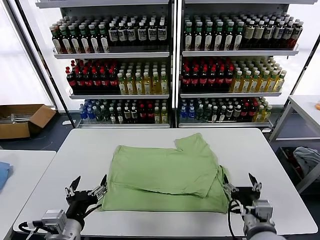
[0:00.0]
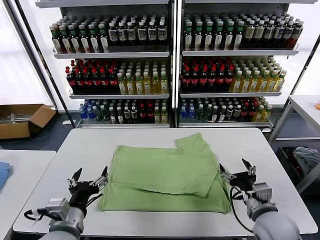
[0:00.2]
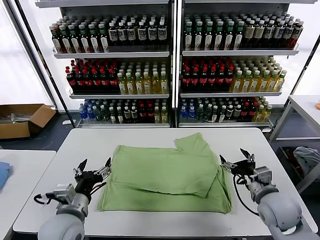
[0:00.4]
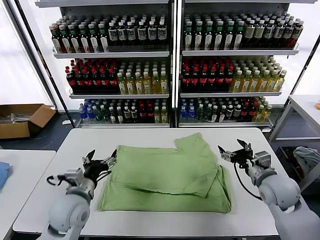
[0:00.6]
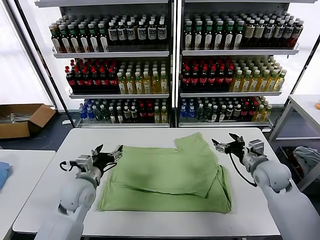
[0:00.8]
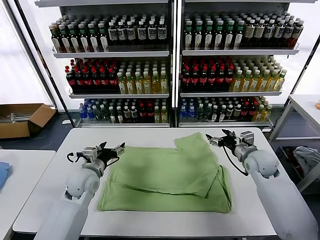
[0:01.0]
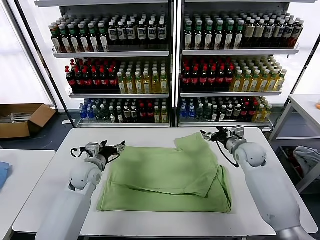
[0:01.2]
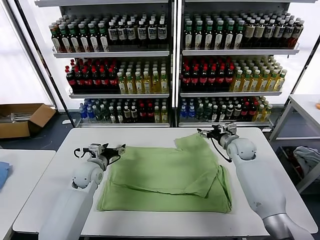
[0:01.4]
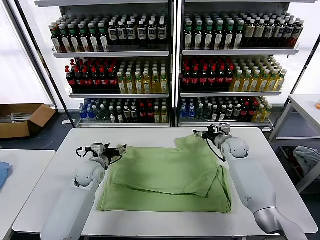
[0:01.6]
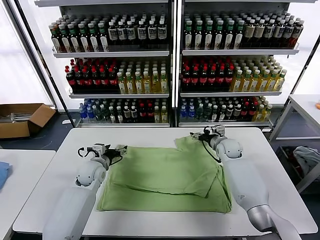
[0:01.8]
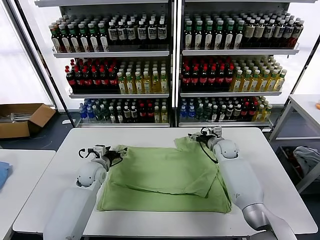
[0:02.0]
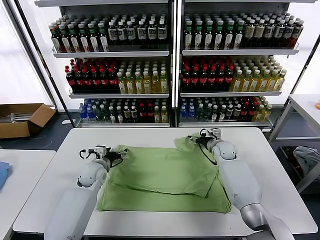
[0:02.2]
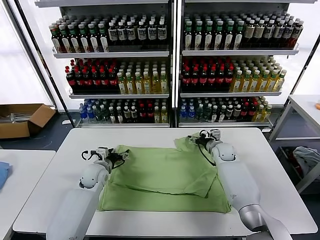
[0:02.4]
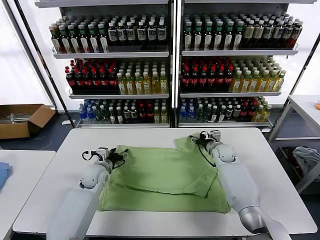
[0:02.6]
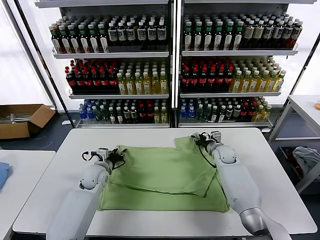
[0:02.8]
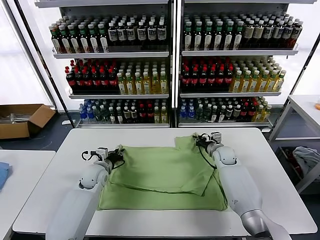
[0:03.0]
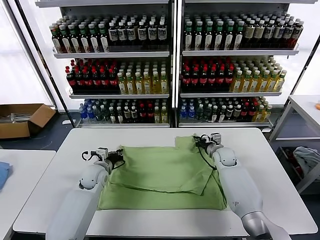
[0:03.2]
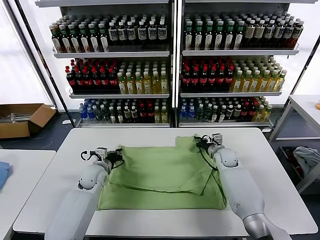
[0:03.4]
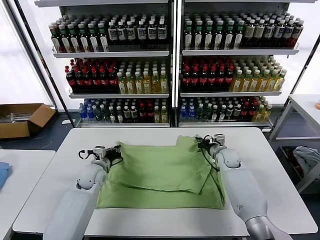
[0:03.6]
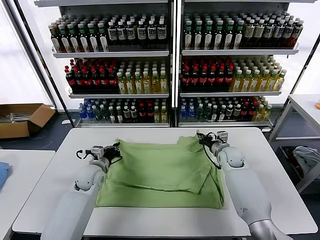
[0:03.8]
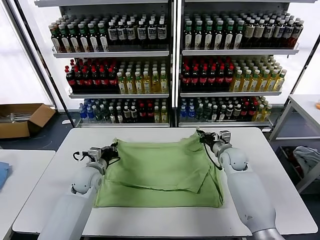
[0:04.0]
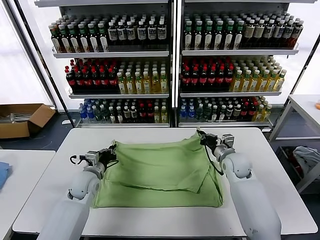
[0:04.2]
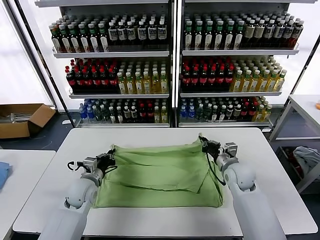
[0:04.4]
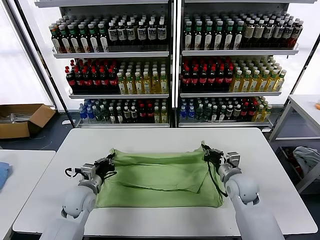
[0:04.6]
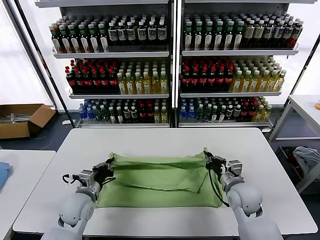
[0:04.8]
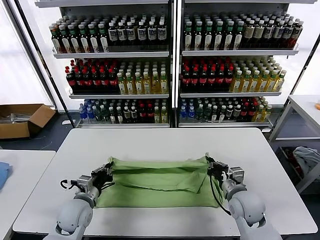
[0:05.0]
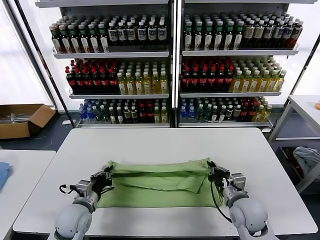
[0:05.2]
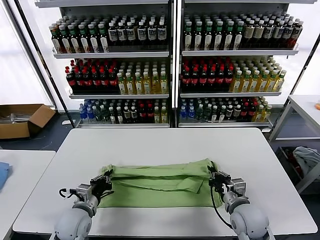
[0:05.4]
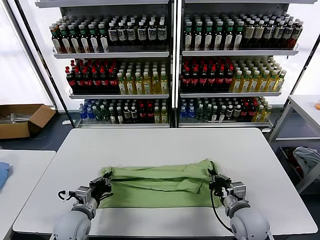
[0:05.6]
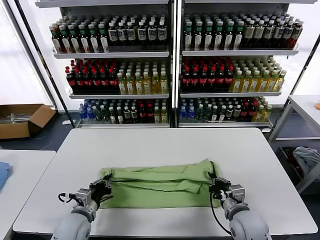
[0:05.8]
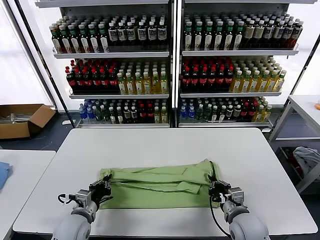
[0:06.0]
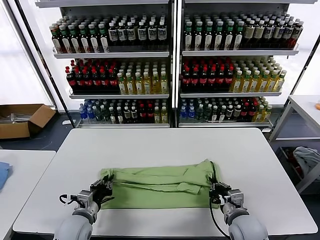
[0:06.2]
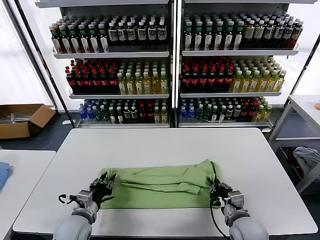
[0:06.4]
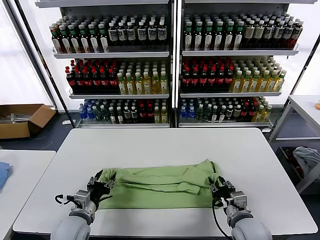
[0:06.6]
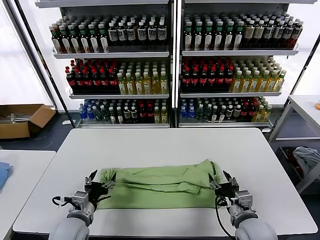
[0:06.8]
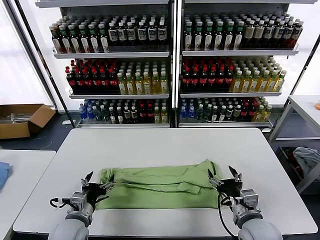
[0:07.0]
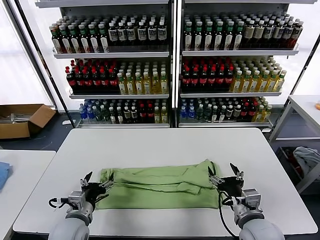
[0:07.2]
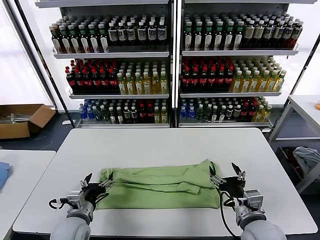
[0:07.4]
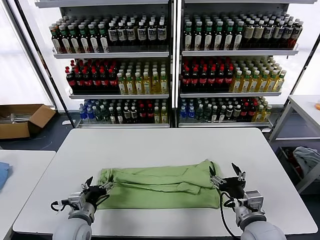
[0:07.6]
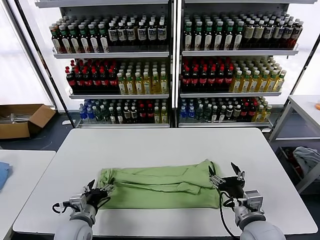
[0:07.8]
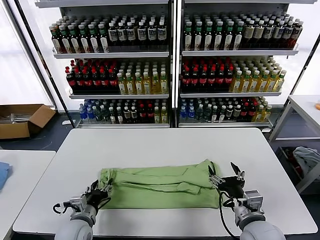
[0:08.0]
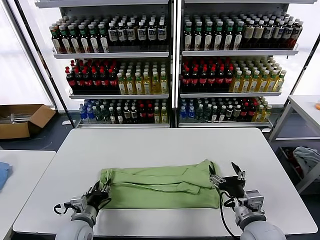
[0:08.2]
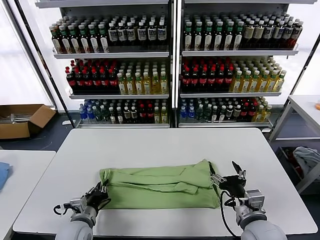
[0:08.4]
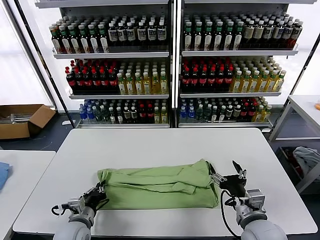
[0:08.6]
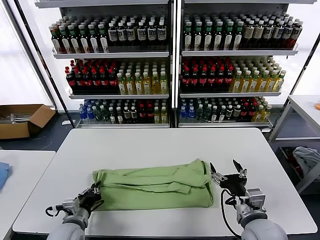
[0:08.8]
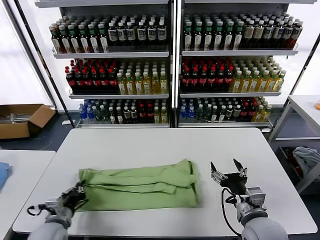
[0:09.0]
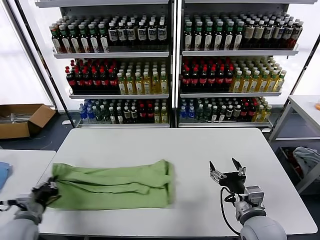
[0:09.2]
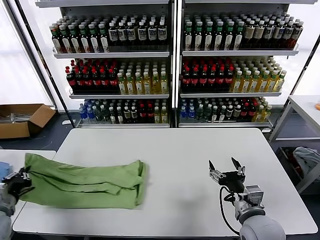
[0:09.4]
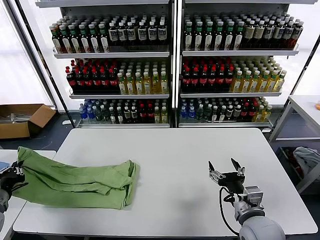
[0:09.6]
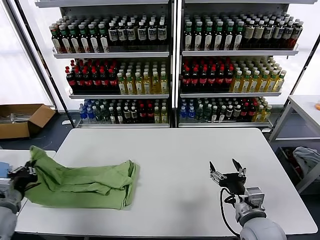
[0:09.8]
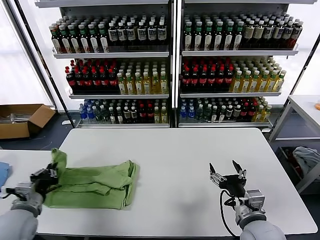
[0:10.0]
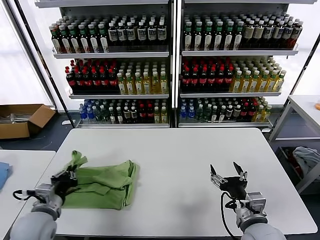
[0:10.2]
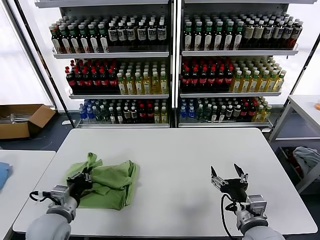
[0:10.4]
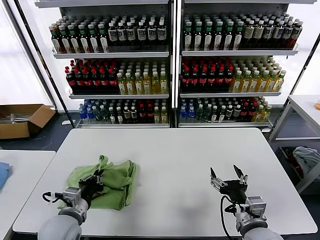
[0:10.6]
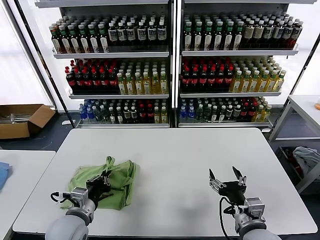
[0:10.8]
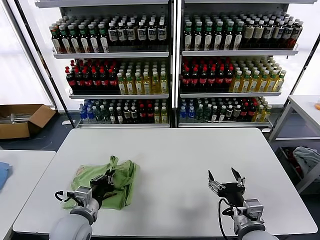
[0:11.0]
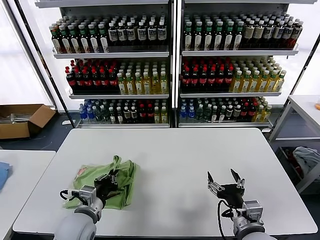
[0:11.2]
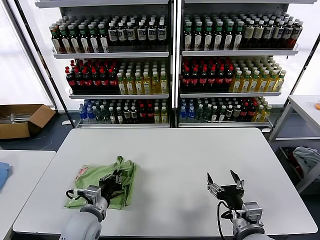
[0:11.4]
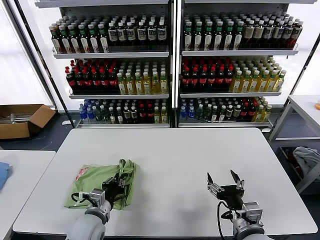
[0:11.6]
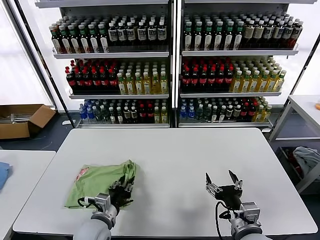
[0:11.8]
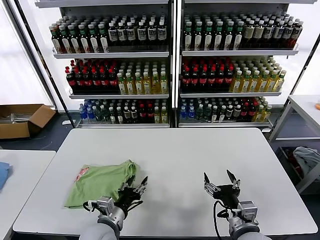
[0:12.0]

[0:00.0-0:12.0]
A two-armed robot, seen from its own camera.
Task of the whole recording: fold and organize the clothes.
Step, 0:00.0 to 0:03.2: use both grippers simultaneously to clamp the upper edge of the clothing fabric.
Step, 0:03.4 to 0:06.8: use both grippers to drag the upper edge of the fabric backward and fold it over the lower edge.
Step, 0:07.0 to 0:08.4: use the left gripper to clamp the left edge of the fabric.
Step, 0:08.8 to 0:12.0: use the left gripper to drag the left edge of the fabric to the left and folds it over the right edge.
0:00.0 to 0:01.6: The grippers both shift forward by roughly 30 cm.
0:01.6 to 0:03.0: The right gripper changes place by some 5 cm, and closes up, while the left gripper closes up.
0:03.0 to 0:04.4: The right gripper goes some 15 cm backward. The left gripper travels backward by approximately 5 cm.
0:04.4 to 0:06.0: Both grippers move backward, roughly 15 cm.
0:06.0 to 0:07.6: The right gripper heads upward, covering about 5 cm, and opens up. The left gripper opens.
0:07.6 to 0:09.0: The left gripper travels to the left by roughly 5 cm, and closes up.
0:09.0 to 0:10.4: The left gripper moves upward, about 5 cm, and moves about 15 cm to the left and comes back.
0:10.4 to 0:12.0: The left gripper is displaced to the right and downward by some 15 cm, and opens.

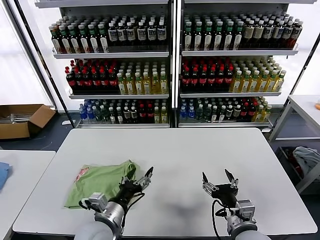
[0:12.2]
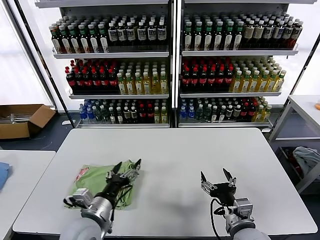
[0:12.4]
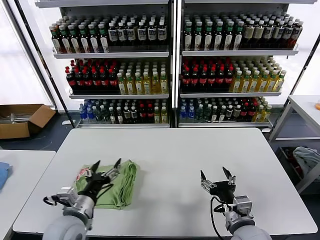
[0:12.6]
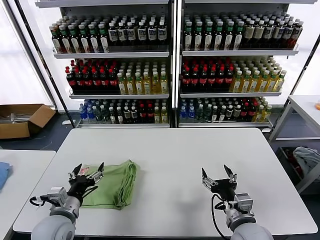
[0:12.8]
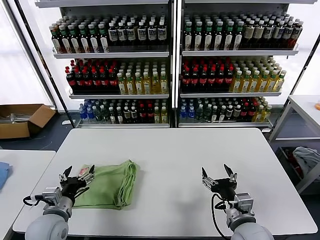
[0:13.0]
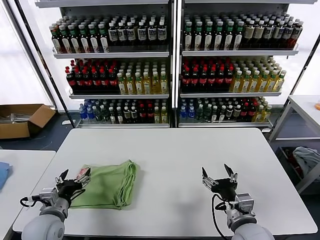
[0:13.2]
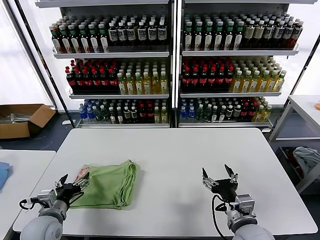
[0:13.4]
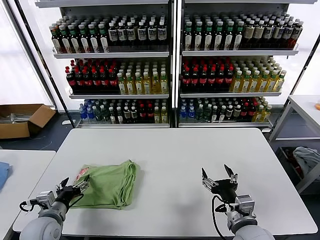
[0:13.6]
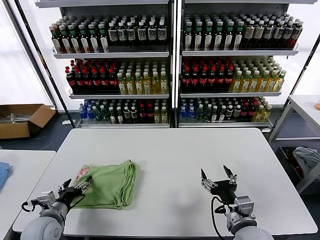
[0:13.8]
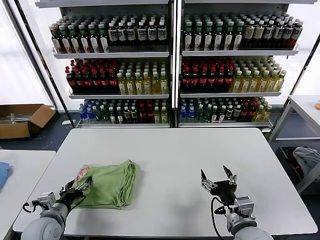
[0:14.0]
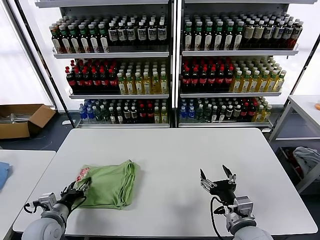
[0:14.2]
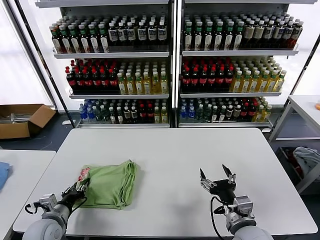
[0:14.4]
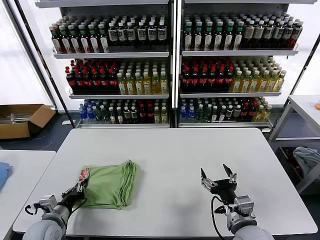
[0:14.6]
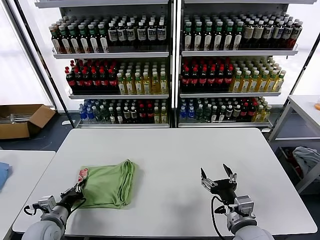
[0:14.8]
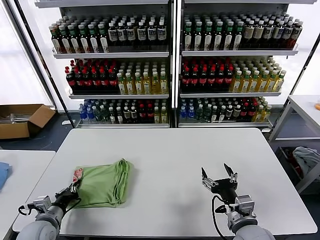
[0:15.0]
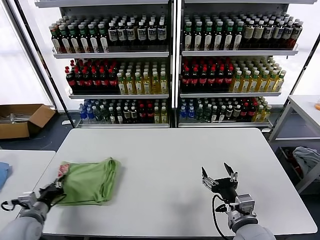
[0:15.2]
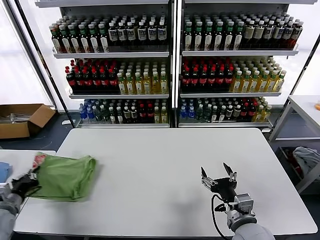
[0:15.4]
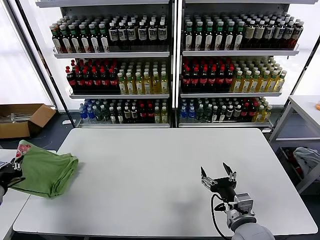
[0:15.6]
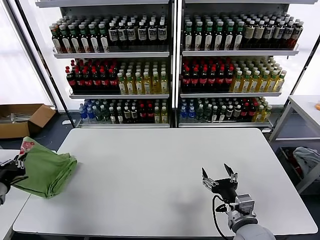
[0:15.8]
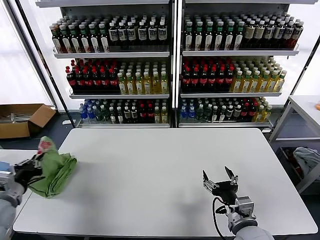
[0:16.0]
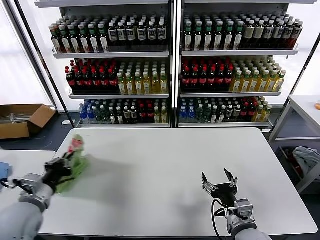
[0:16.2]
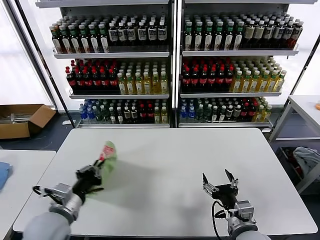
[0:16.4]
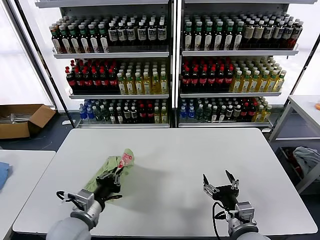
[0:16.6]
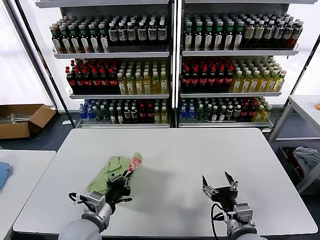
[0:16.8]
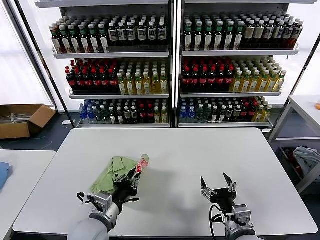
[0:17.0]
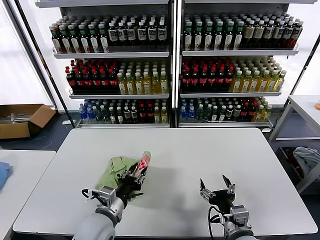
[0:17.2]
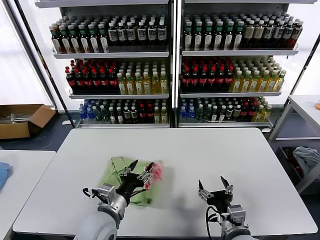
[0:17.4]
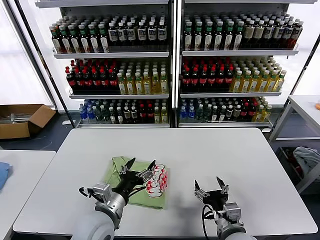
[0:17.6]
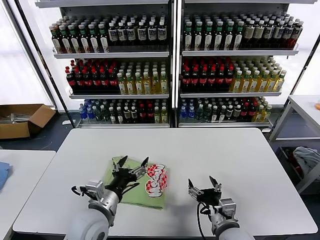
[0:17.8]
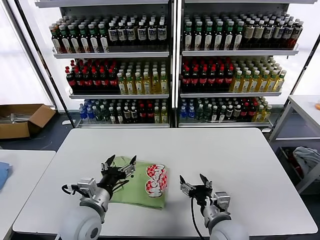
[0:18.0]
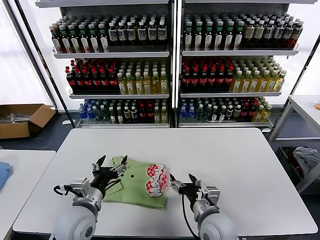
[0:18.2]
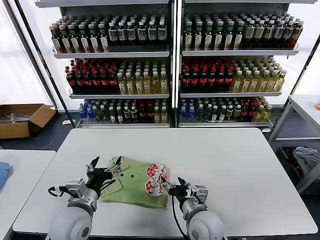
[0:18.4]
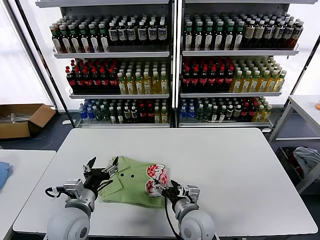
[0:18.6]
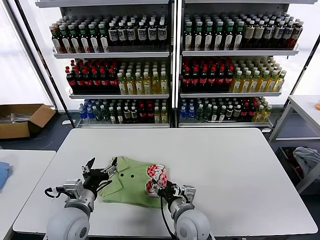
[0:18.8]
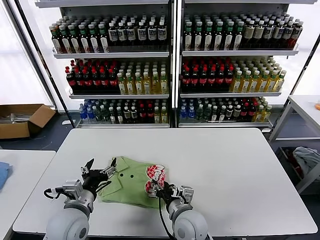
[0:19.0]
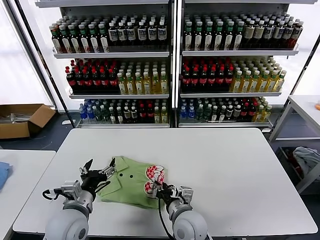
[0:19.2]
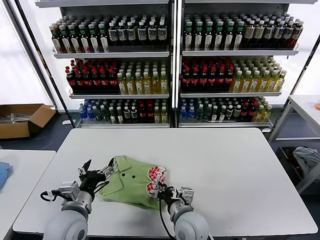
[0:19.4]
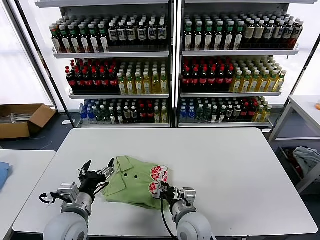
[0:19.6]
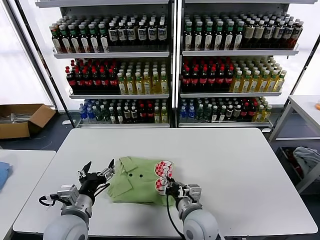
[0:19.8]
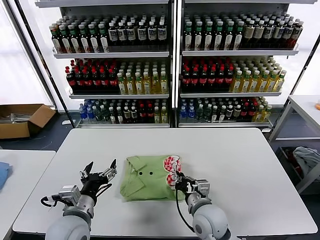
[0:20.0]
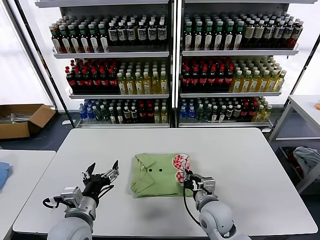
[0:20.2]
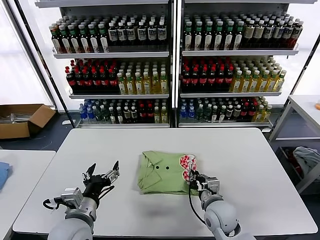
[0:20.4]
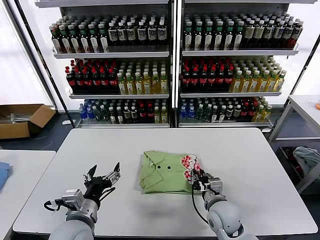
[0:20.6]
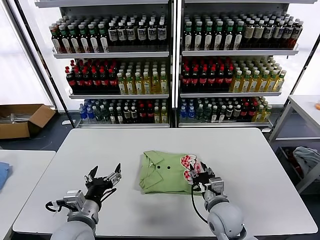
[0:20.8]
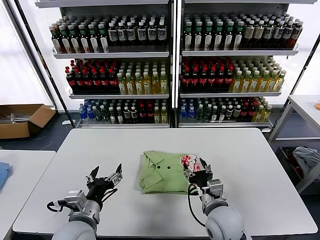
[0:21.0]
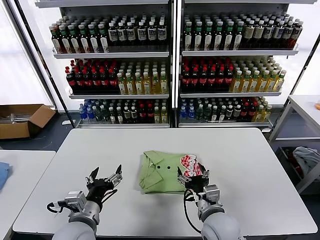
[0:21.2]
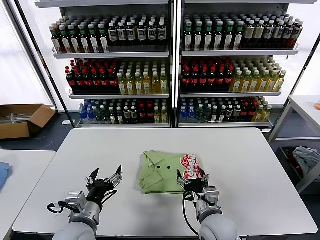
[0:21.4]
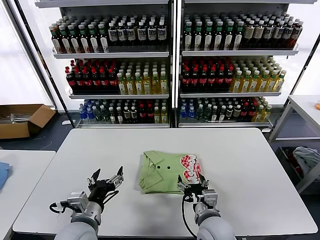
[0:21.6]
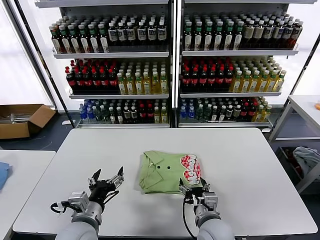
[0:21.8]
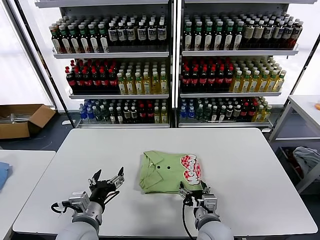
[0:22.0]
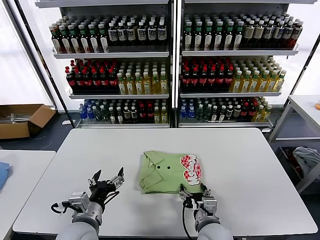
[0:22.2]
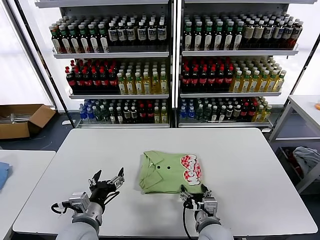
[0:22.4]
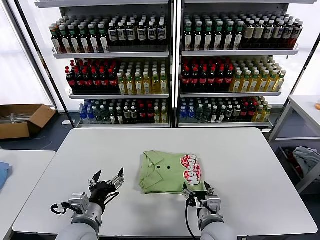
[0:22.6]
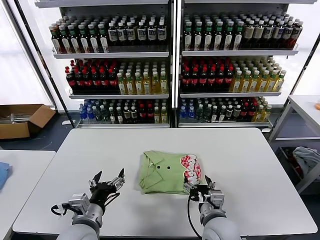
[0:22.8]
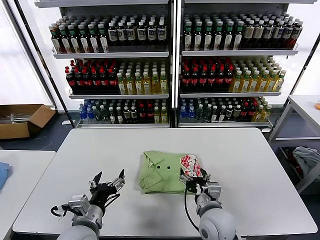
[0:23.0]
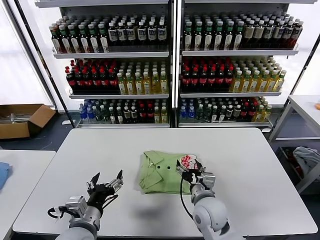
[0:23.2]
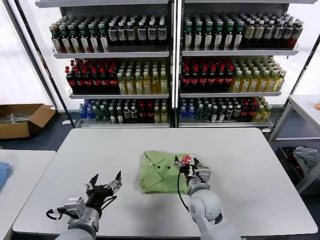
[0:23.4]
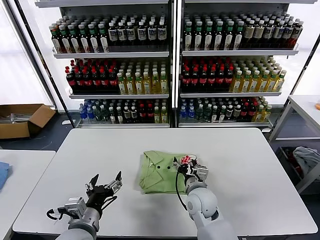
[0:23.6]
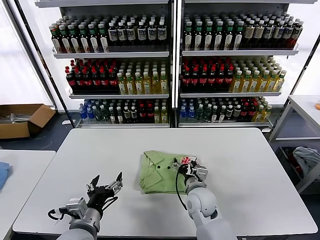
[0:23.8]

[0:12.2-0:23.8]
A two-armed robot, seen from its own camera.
Task of the whole recording: fold and organize the clothes.
Step, 0:12.2 to 0:17.6: Flip the folded clothes over with left gripper.
0:12.2 to 0:13.6: The left gripper is displaced to the left by approximately 20 cm.
0:13.6 to 0:15.0: The left gripper closes up.
0:15.0 to 0:16.6: The left gripper travels to the right and upward by some 15 cm.
0:16.6 to 0:18.0: The left gripper opens its fingers, while the right gripper shifts roughly 5 cm to the left.
0:18.0 to 0:19.4: The right gripper goes about 10 cm to the left, and closes its fingers.
0:19.4 to 0:21.0: The right gripper heads to the right, covering approximately 10 cm, and opens its fingers.
0:21.0 to 0:22.4: The right gripper ends up roughly 5 cm from where it was.
0:22.4 to 0:23.8: The right gripper shifts roughly 10 cm forward.
